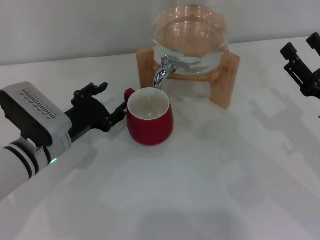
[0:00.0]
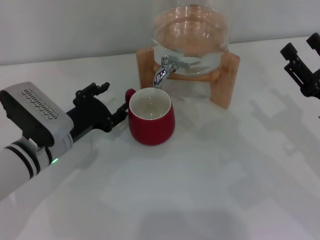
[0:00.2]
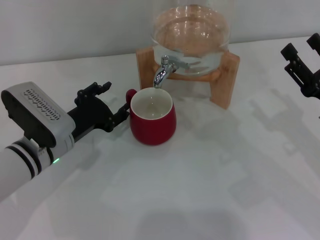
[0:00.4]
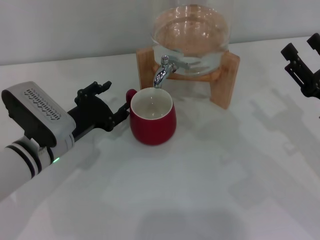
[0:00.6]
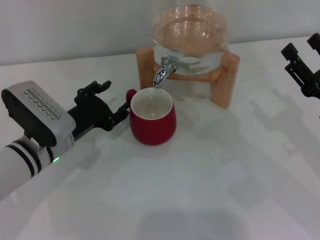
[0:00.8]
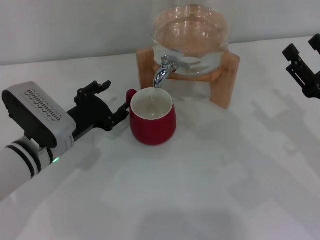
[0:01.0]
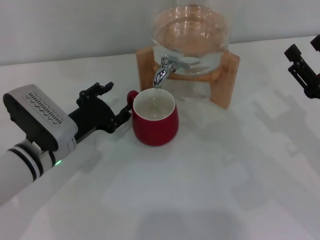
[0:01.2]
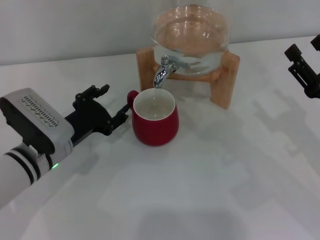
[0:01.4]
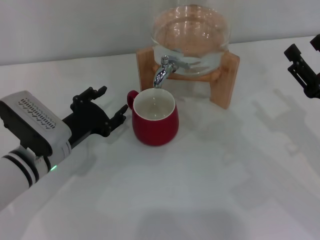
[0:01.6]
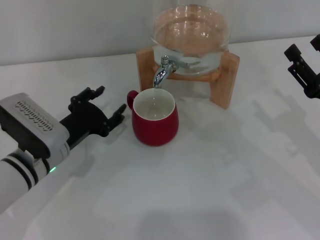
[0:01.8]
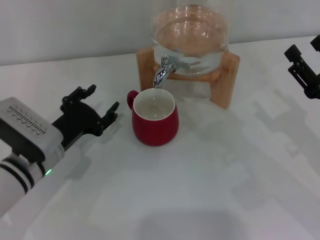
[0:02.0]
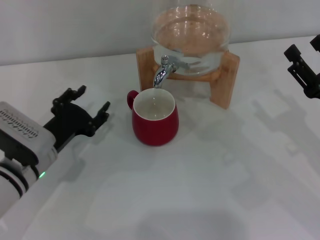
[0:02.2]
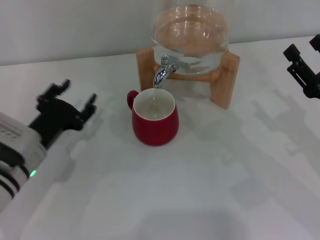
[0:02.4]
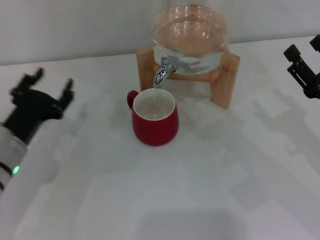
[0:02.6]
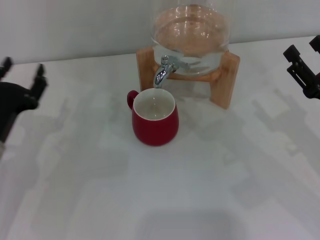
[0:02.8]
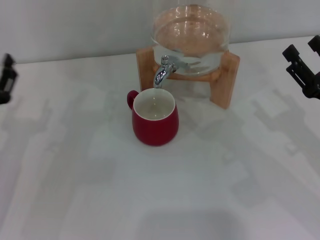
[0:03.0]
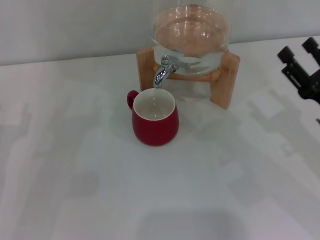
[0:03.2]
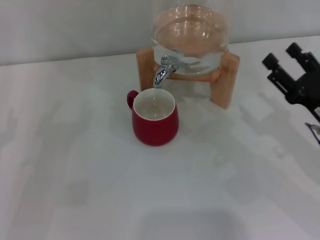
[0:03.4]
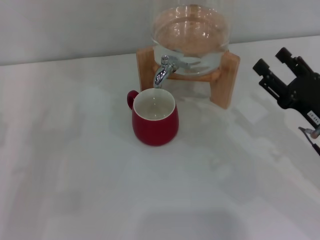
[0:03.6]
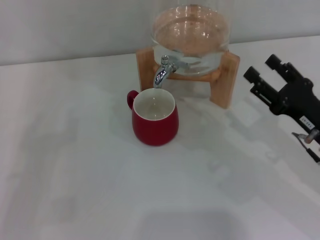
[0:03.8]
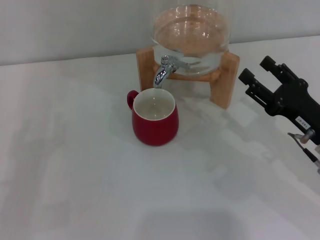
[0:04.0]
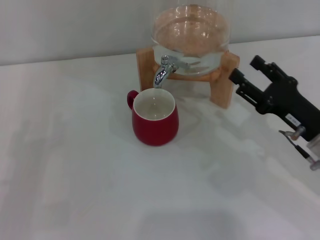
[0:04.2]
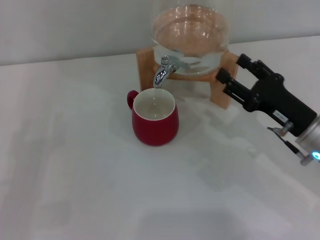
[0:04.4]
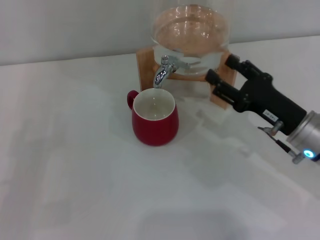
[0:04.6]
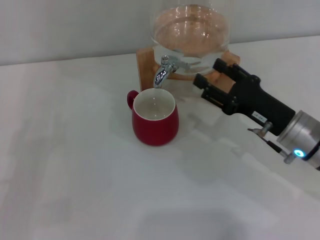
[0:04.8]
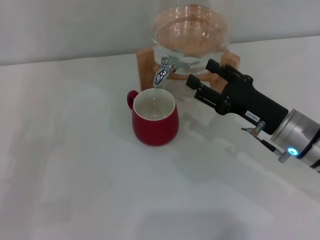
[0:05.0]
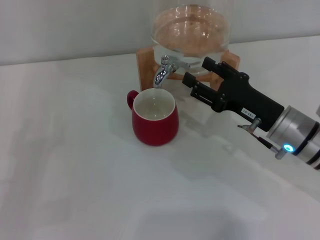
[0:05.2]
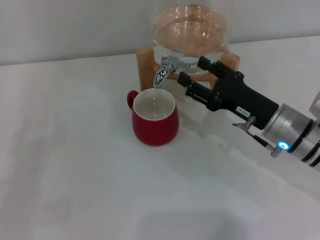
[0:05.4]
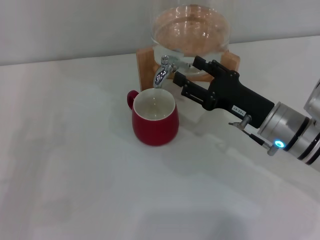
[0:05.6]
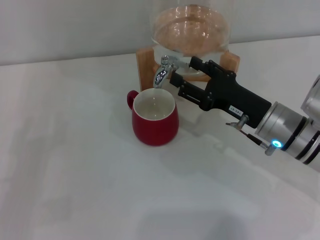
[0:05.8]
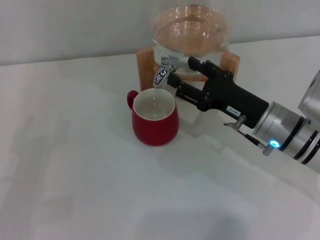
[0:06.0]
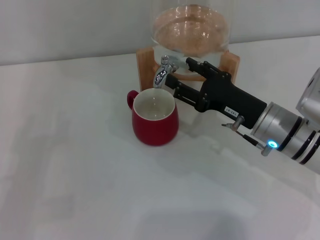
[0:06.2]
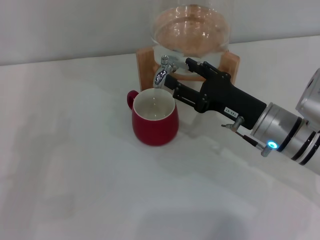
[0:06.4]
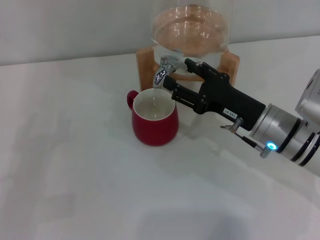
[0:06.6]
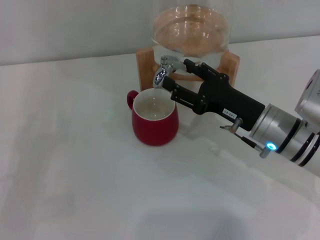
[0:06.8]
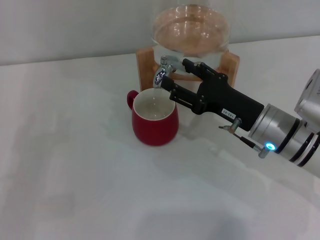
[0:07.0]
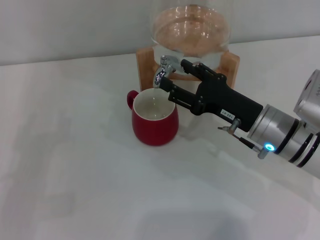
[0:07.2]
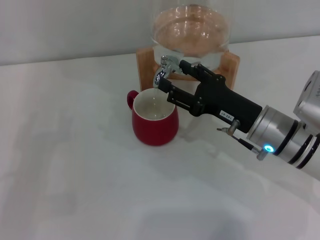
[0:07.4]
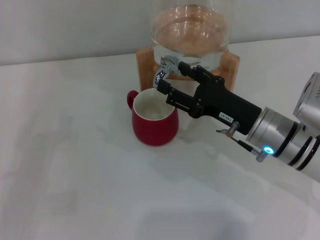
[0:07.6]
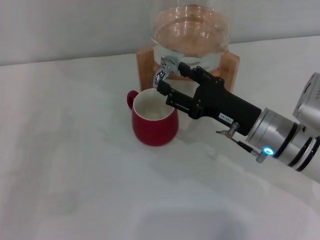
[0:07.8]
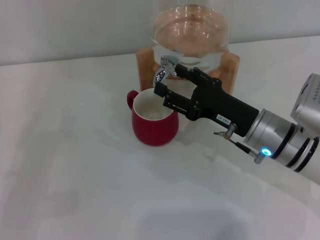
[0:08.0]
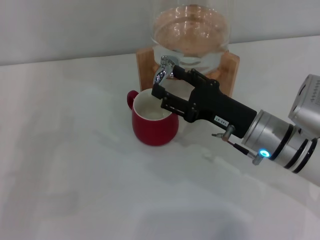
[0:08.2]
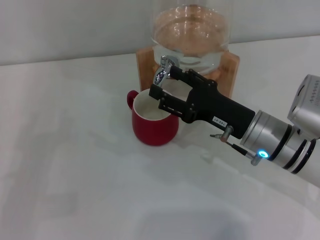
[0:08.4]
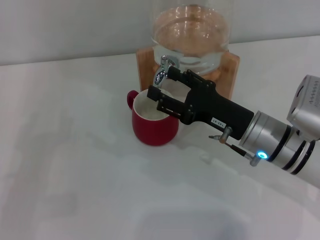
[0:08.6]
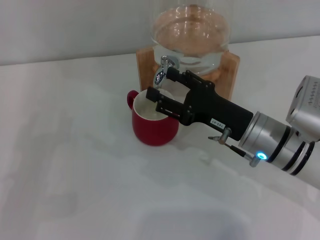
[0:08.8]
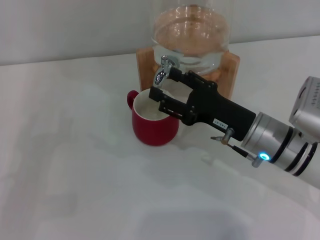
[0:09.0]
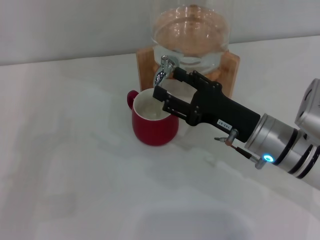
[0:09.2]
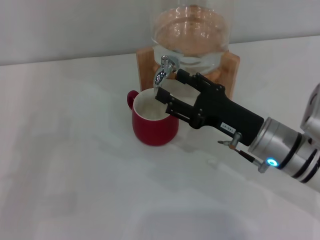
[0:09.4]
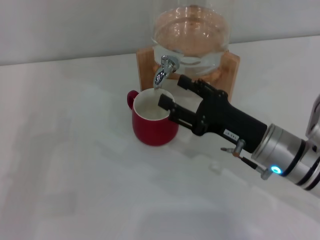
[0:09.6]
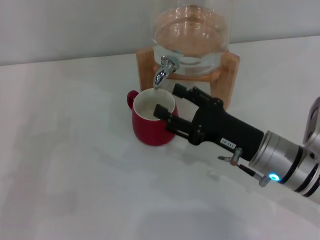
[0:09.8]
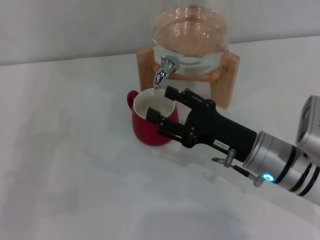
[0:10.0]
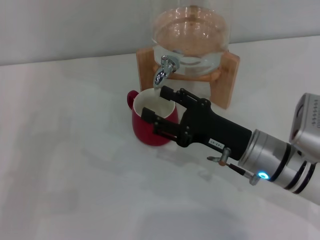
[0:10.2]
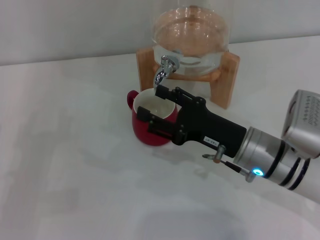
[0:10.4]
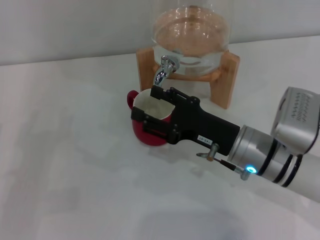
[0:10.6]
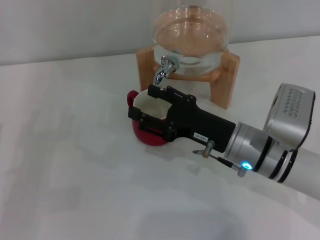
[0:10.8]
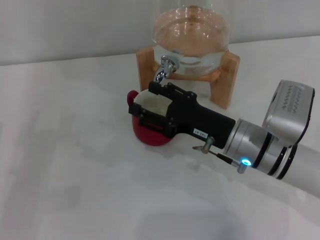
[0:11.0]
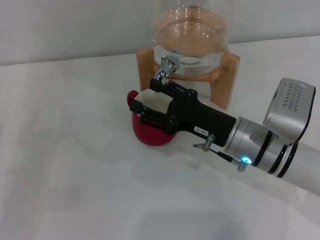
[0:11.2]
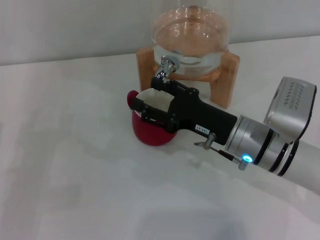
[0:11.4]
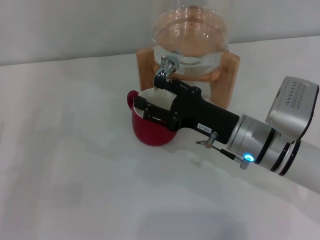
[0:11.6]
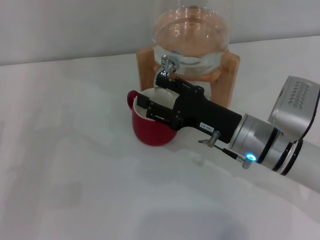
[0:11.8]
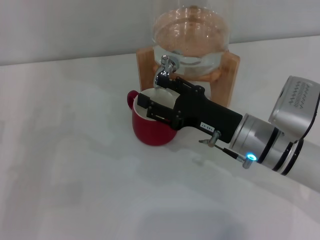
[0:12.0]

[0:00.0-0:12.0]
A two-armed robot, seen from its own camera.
Task of the whole recording: the left gripper pick up the red cup and place it horizontally under the faucet, the right gripper turn on the faucet to fill the cup, and then turn off the faucet.
Step, 0:00.0 to 0:02.0: Move the cup beneath the water dispenser nozzle with the left gripper.
Step, 0:02.4 to 0:11.2: Open the dispenser valve and fill the cup with water with the right gripper.
0:00.0 to 0:01.6: Both grippers stay about where they are.
0:01.6 to 0:03.0: The left gripper travels to the left by some 10 cm.
0:03.0 to 0:04.4: The left gripper shifts some 10 cm to the left and backward. Meanwhile the right gripper moves to the left, roughly 5 cm.
0:04.4 to 0:06.0: The right gripper is displaced to the left by some 5 cm.
0:06.0 to 0:07.6: There are only small adjustments of the grippers.
0:07.6 to 0:09.0: Both grippers stay about where they are.
0:09.0 to 0:12.0: There are only small adjustments of the grippers.

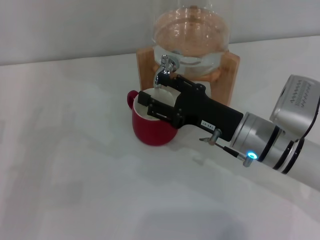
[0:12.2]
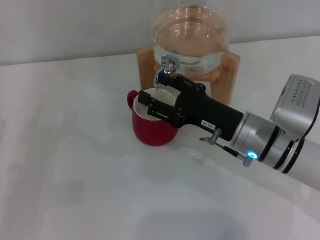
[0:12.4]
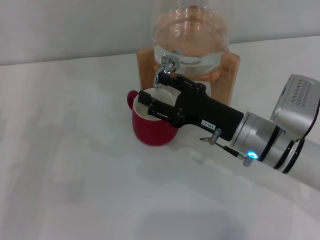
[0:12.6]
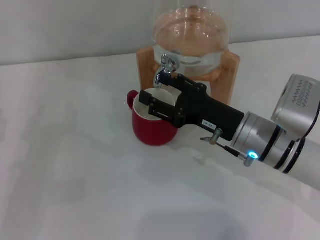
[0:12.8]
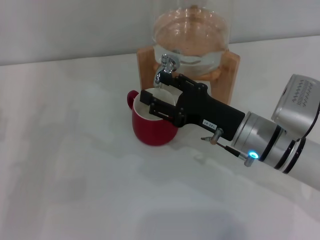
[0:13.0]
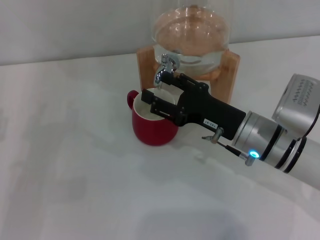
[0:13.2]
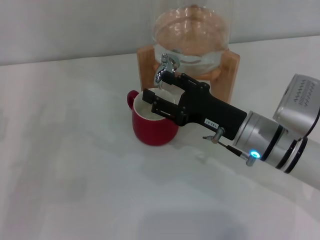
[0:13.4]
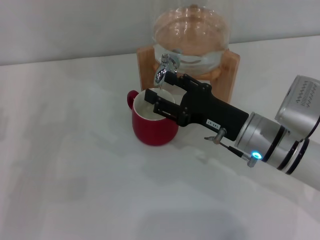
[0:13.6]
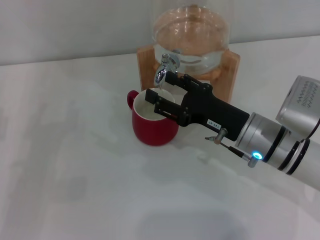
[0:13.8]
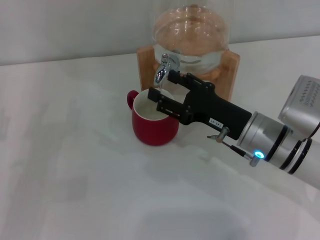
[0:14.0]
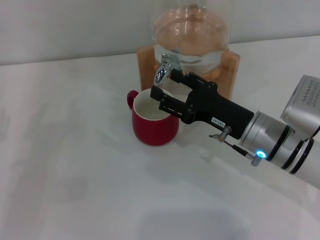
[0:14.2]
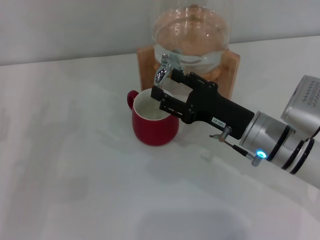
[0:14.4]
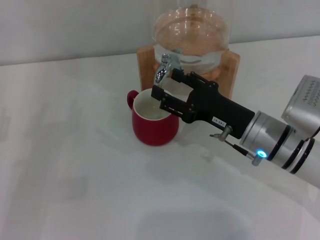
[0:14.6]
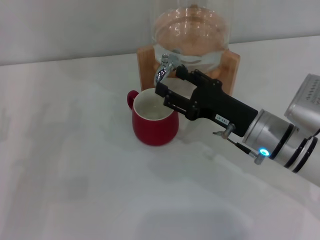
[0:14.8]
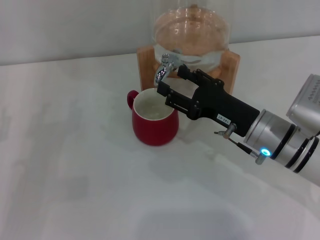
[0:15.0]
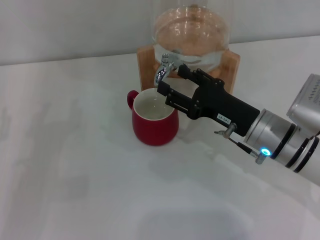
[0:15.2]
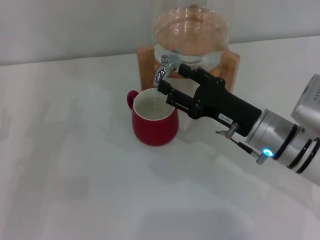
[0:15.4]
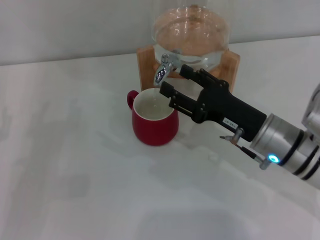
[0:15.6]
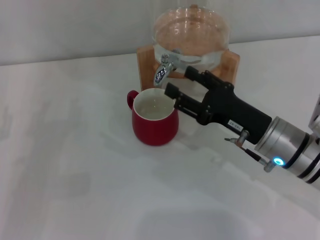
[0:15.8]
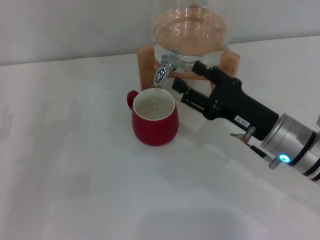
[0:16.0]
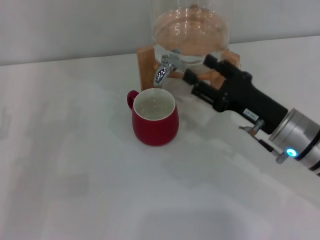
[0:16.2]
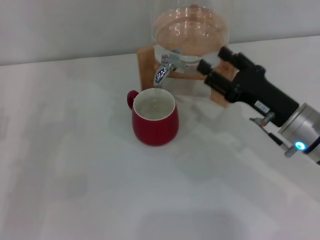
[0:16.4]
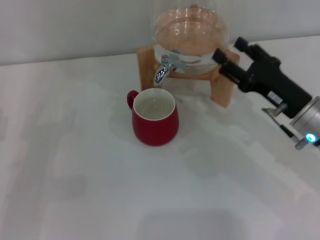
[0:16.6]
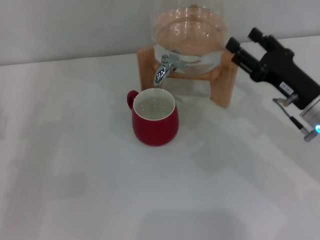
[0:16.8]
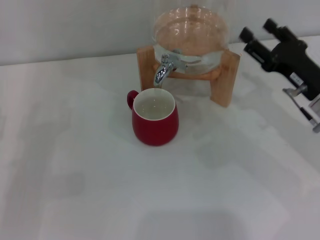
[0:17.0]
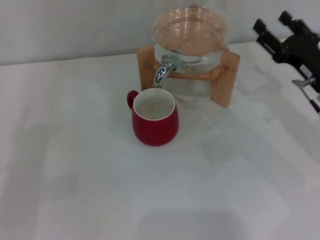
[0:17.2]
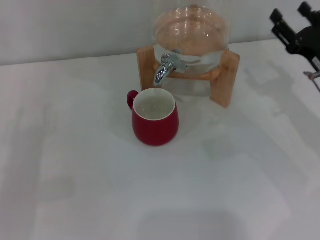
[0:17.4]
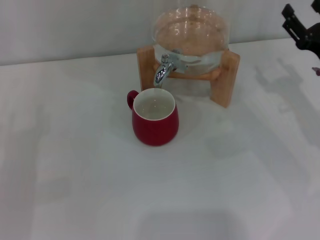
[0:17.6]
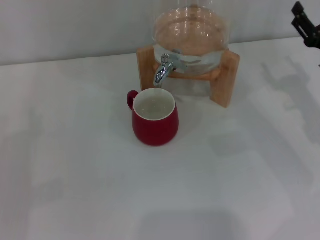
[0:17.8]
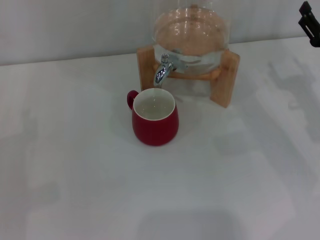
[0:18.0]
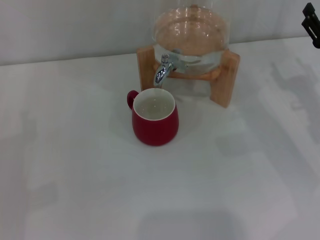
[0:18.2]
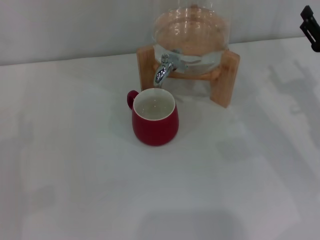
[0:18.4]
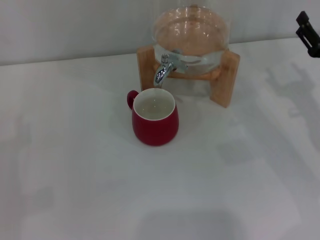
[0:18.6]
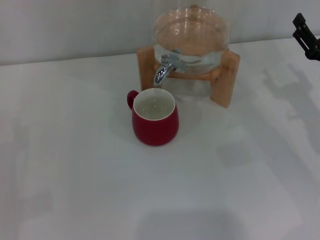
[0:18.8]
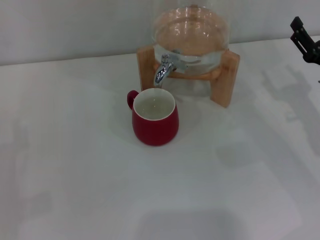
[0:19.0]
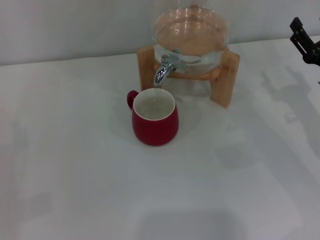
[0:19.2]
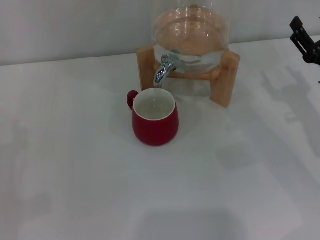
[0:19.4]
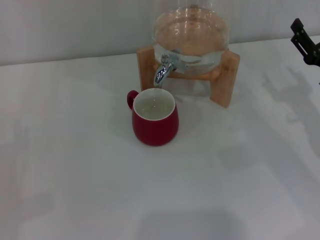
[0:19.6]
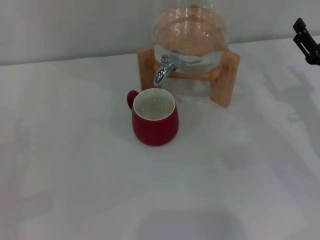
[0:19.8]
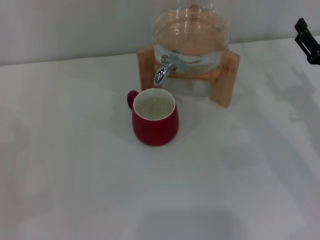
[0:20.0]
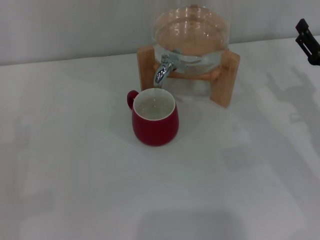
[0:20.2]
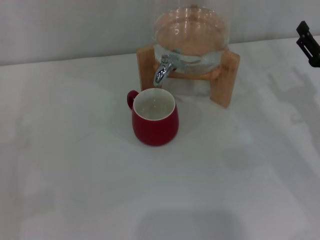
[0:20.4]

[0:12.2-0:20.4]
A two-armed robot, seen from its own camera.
Task of the whole recording: the left gripper pick up the red cup and place it horizontally under the faucet, the right gripper turn on the faucet to fill the cup, and then turn off the faucet.
Step, 0:12.2 to 0:16.2: Close the dispenser valve with the right gripper.
0:12.2 to 0:13.8: Both grippers stay about where they are.
0:13.8 to 0:15.4: Both grippers stay about where they are.
0:15.4 to 0:17.2: The right gripper goes approximately 10 cm to the right.
0:17.2 to 0:18.8: The grippers make only small movements.
0:18.8 to 0:20.4: Both grippers stay about where they are.
